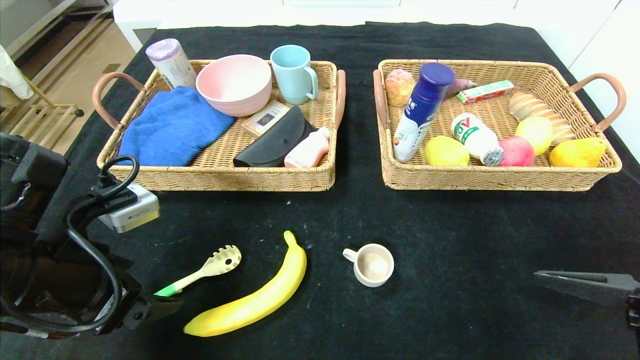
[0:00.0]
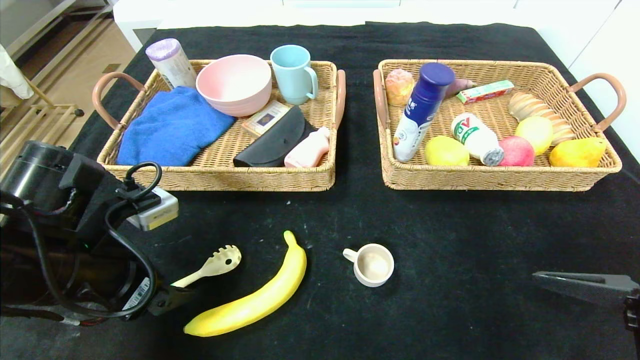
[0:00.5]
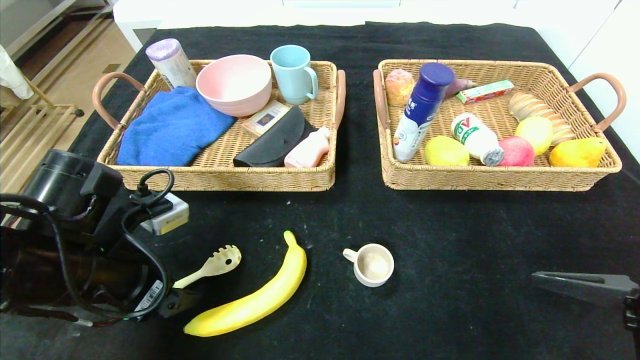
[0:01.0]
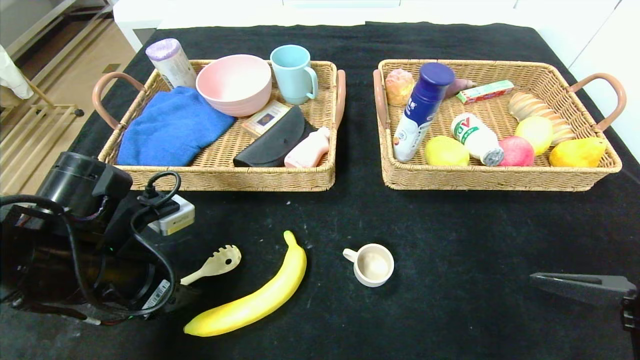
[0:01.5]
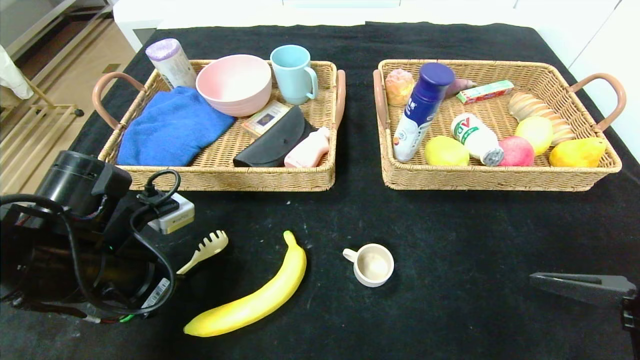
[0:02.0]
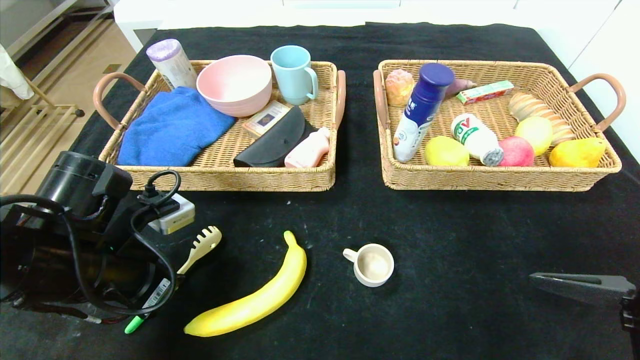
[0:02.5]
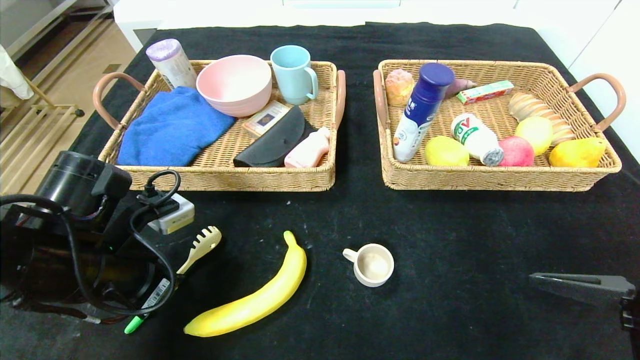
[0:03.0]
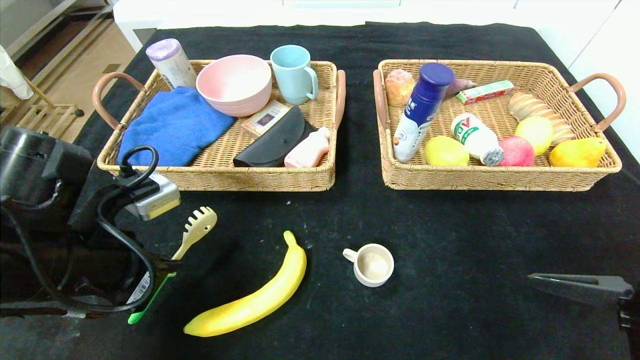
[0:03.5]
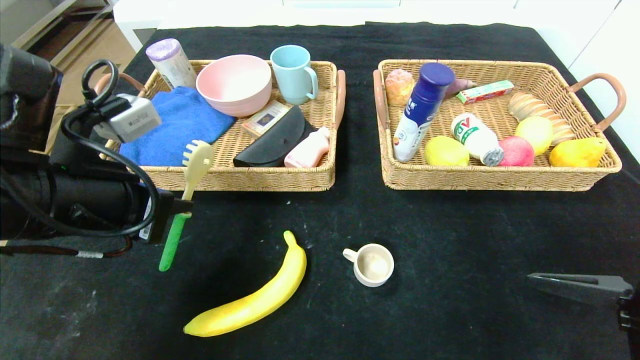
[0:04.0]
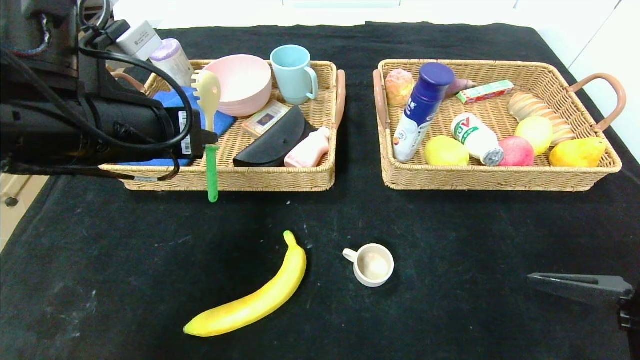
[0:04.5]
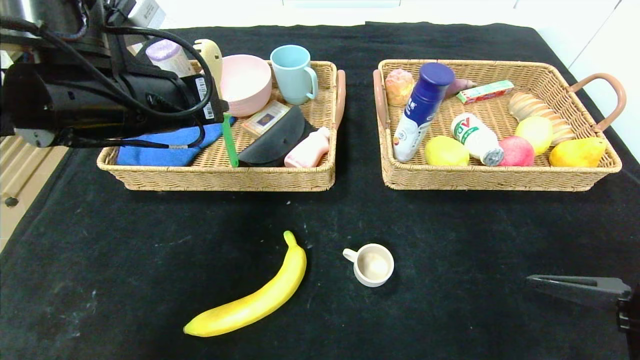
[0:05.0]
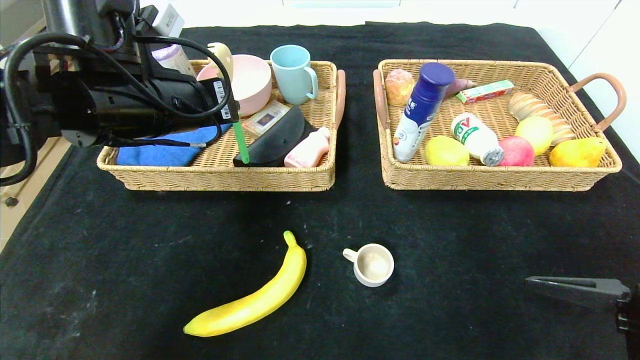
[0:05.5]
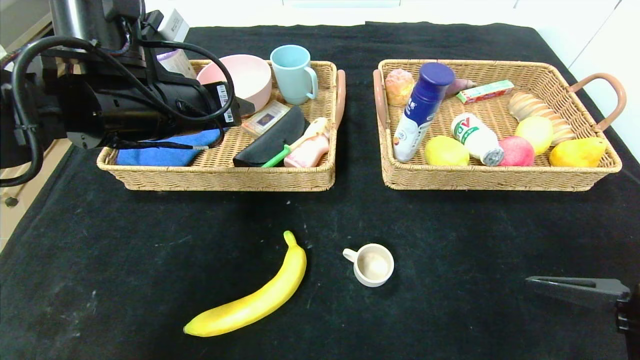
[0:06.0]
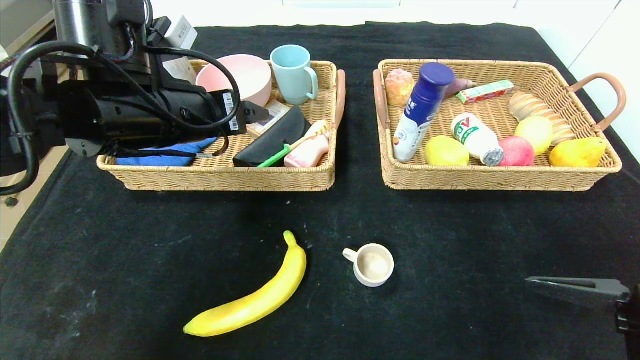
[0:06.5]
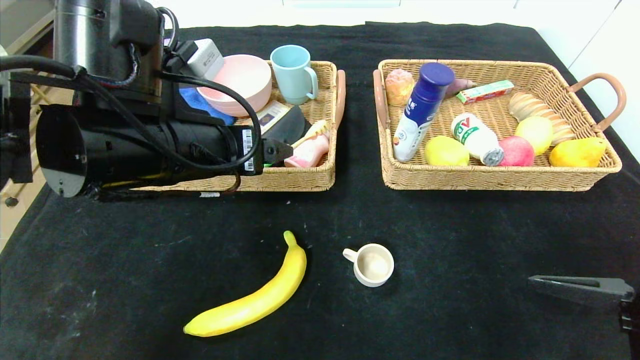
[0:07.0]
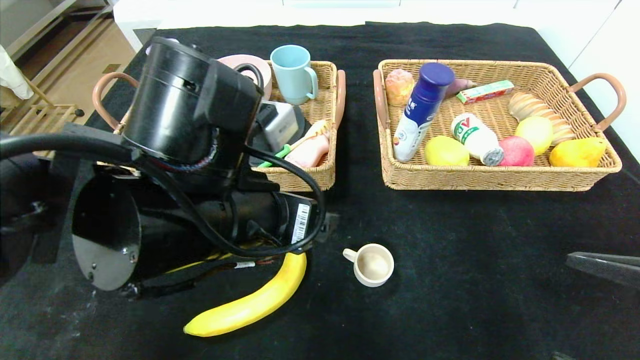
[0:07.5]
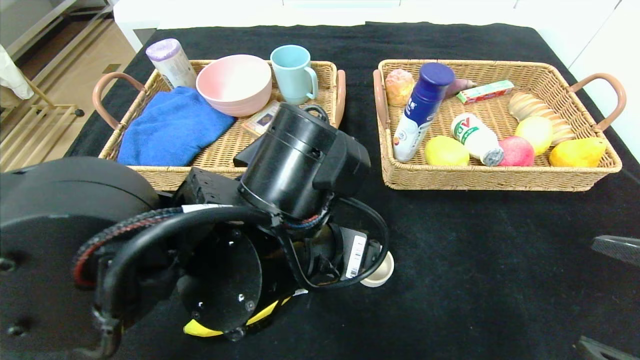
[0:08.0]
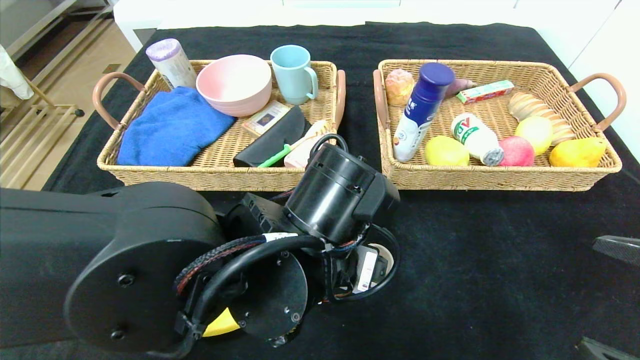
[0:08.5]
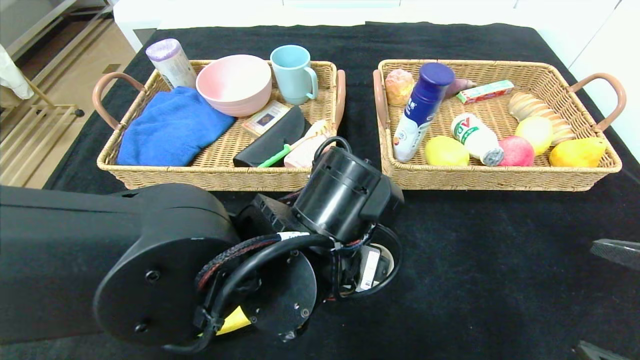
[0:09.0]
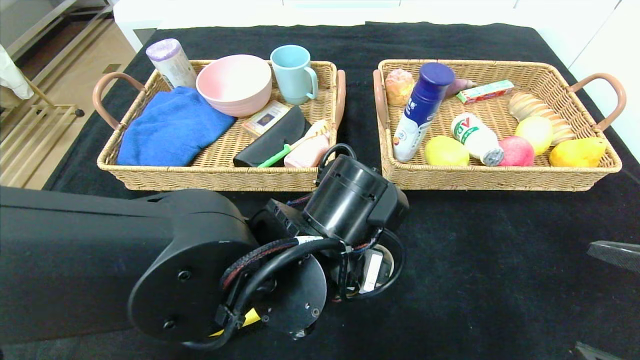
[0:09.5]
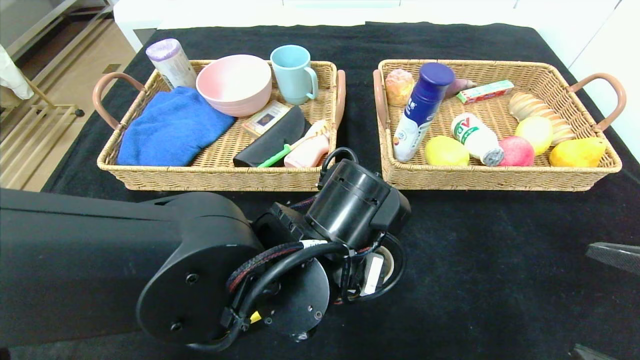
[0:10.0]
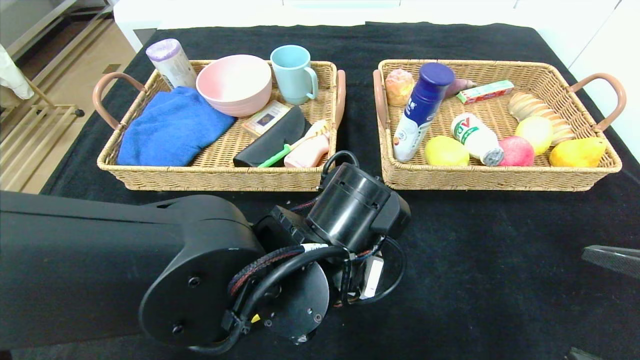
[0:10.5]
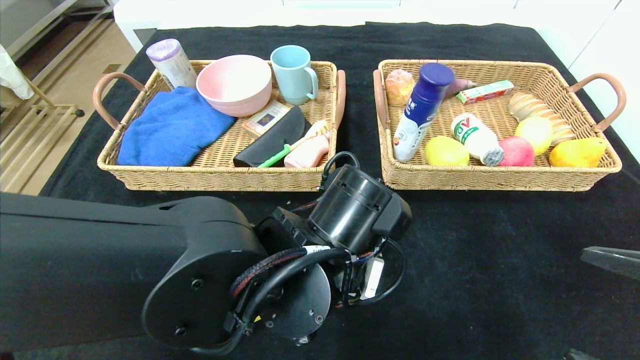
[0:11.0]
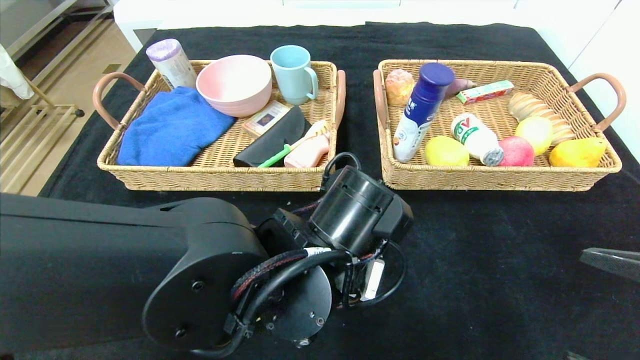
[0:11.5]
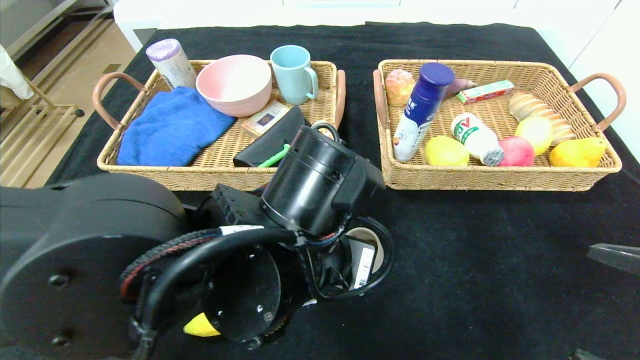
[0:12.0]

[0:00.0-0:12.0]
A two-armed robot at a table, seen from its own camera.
Step, 0:00.0 to 0:07.0: Pick up the back scratcher and put it in the left basket.
0:00.0 to 0:02.0: The left gripper closes up.
0:02.0 to 0:04.0: The left gripper heads upward, covering some 10 cm.
0:04.0 to 0:06.0: The left gripper moves forward, roughly 10 cm, and opens its fingers.
0:06.0 to 0:08.0: The left gripper travels to the right, backward and downward by about 20 cm, and opens up.
0:08.0 to 0:10.0: The left gripper shifts by some 5 cm.
0:10.0 to 0:12.0: The left gripper closes.

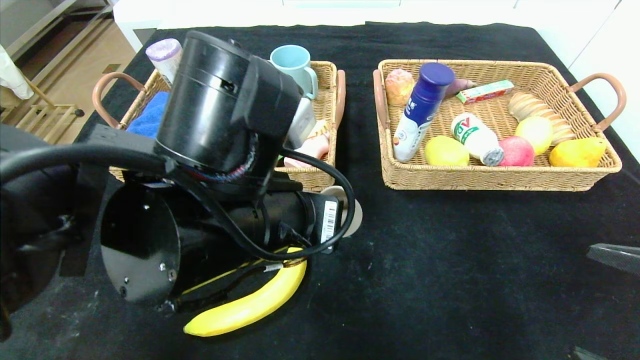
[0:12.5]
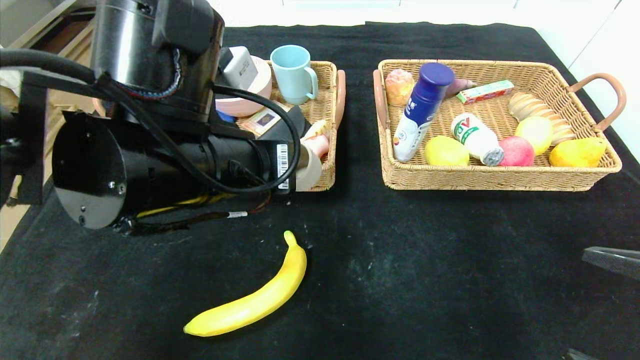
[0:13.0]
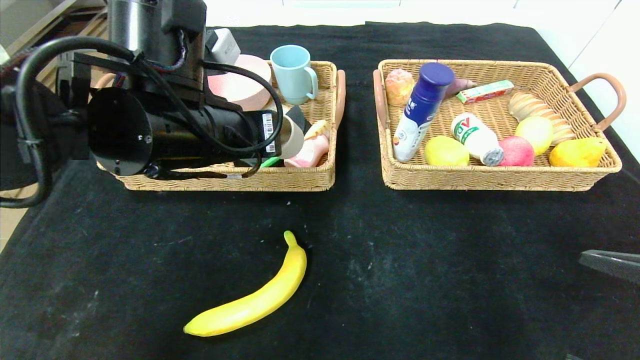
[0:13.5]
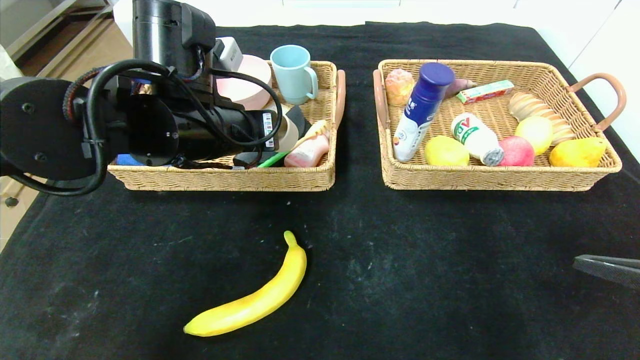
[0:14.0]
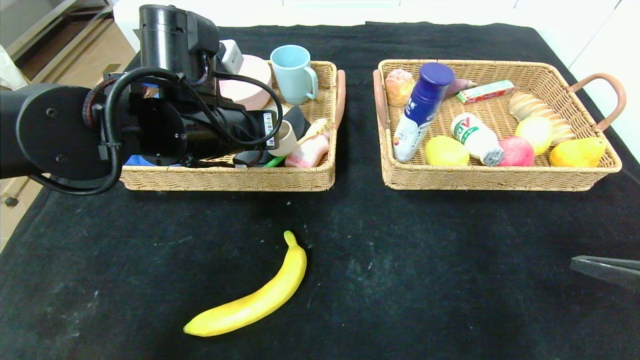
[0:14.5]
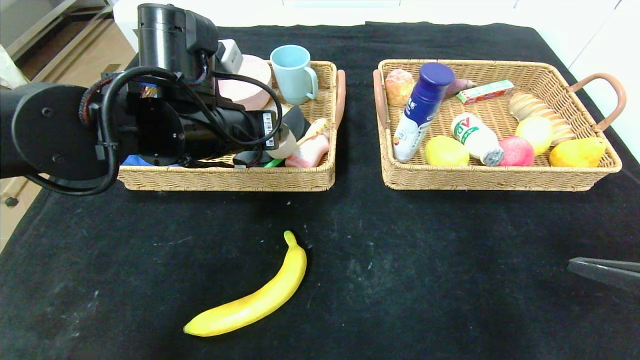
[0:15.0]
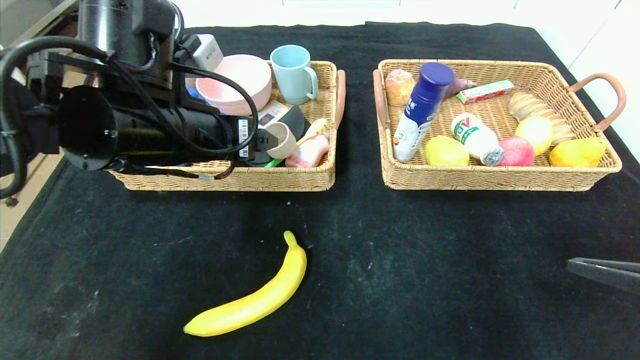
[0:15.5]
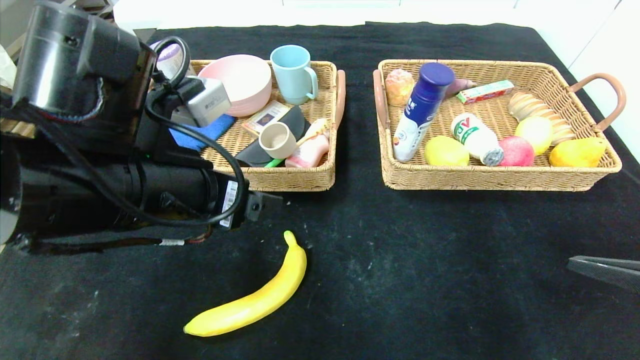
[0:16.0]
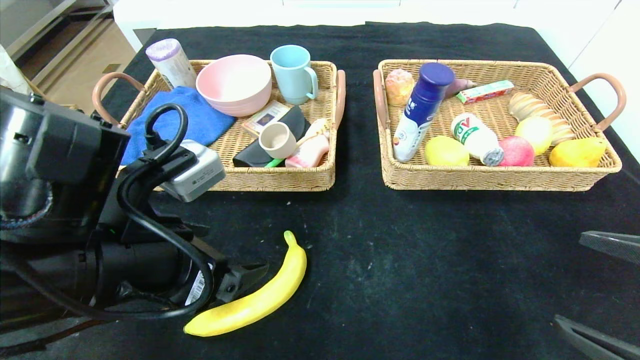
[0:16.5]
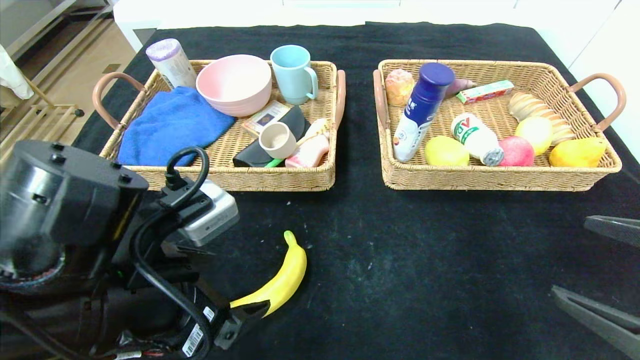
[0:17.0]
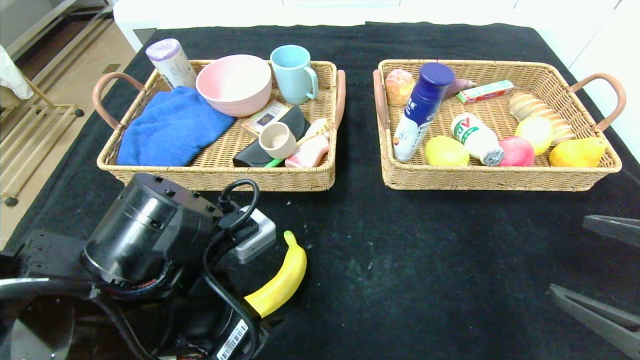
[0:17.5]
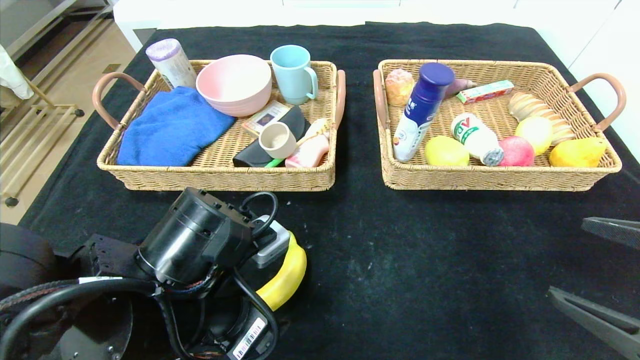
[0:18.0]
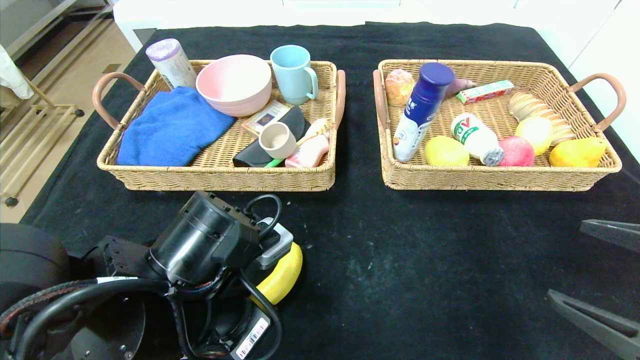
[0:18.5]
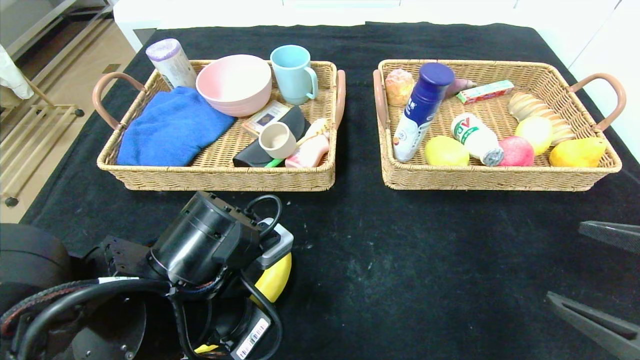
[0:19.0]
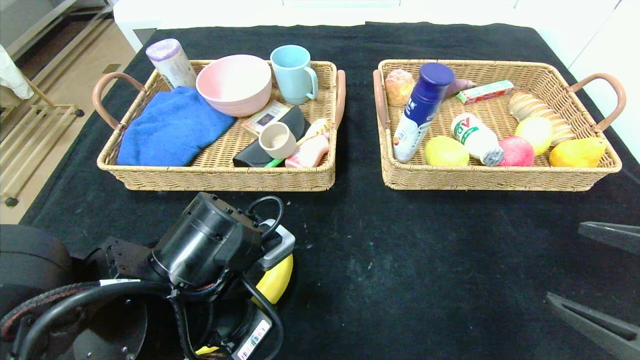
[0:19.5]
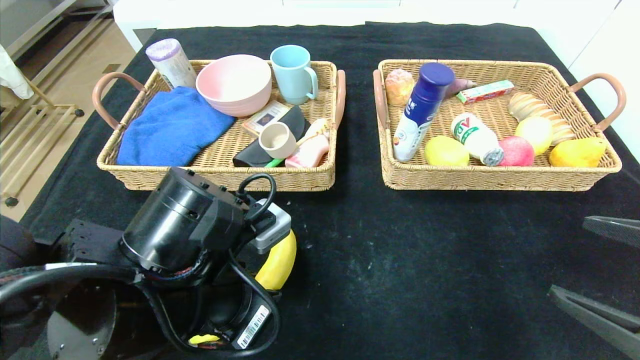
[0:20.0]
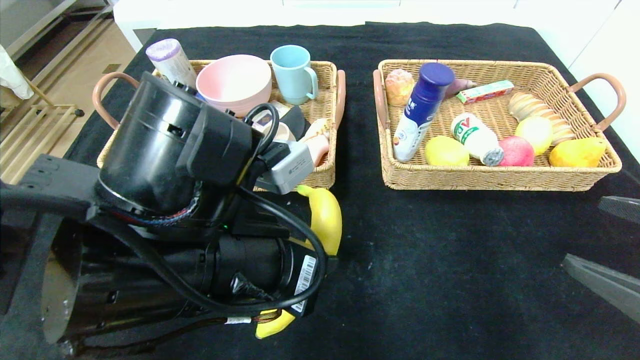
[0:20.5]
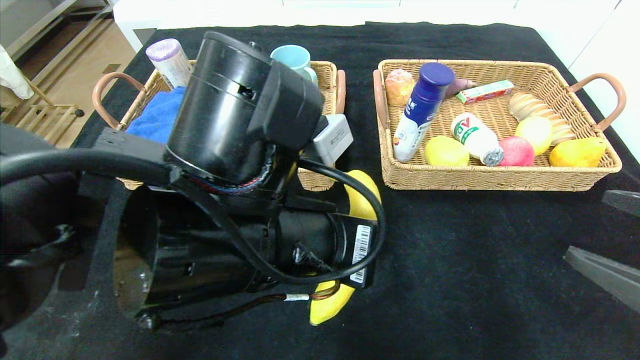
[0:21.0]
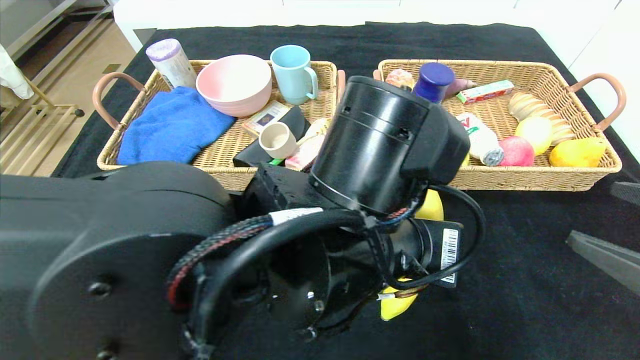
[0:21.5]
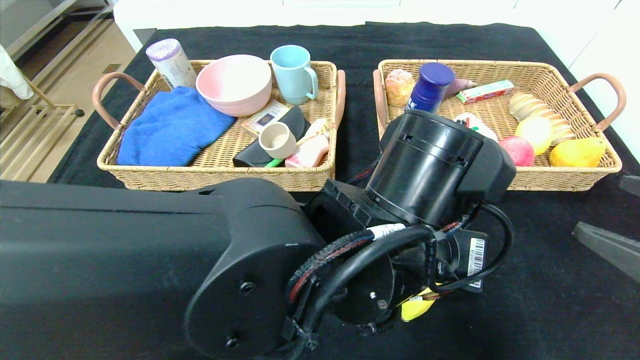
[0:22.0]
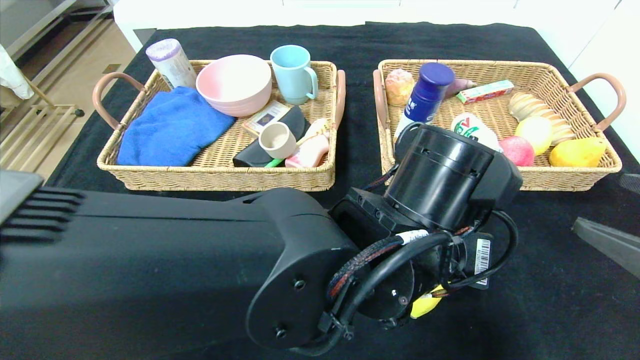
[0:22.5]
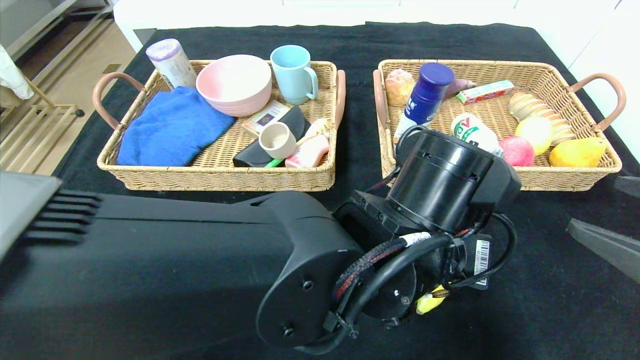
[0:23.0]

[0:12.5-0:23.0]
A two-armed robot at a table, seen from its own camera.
Step, 0:12.5 to 0:15.5: Pick up the tea cup and put it in the left basket.
0:12.5 to 0:14.5: The left gripper goes approximately 15 cm forward and to the left.
0:14.5 to 0:16.5: The left gripper moves backward, approximately 15 cm, and opens its fingers.
0:16.5 to 0:19.0: The left gripper travels downward by about 5 cm, and closes.
0:19.0 to 0:21.0: The left gripper heads upward and to the right, covering some 10 cm.
0:21.0 to 0:23.0: The left gripper heads to the right, covering roughly 10 cm, and opens its fingers.
